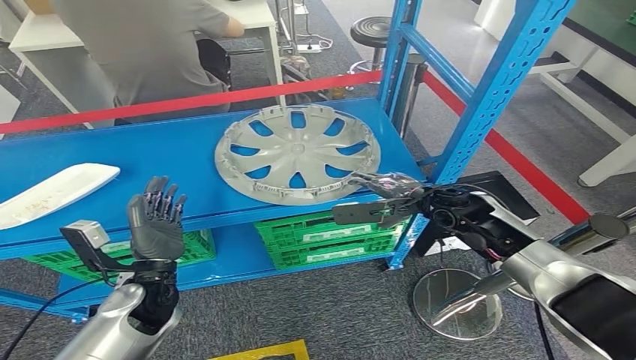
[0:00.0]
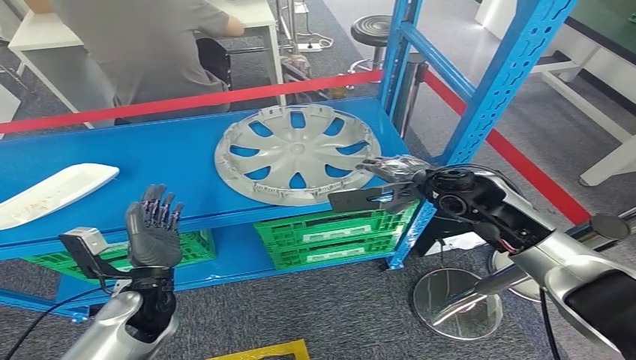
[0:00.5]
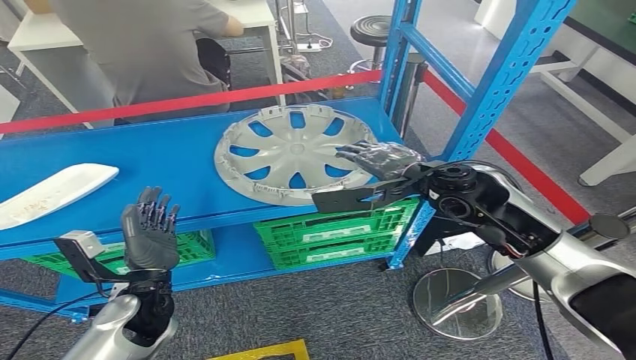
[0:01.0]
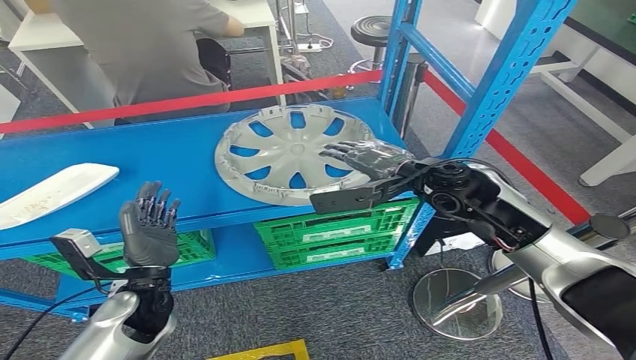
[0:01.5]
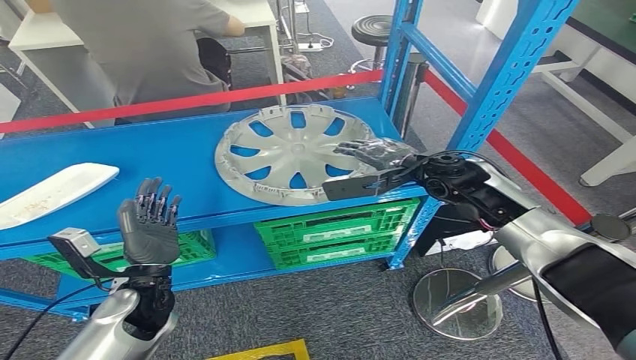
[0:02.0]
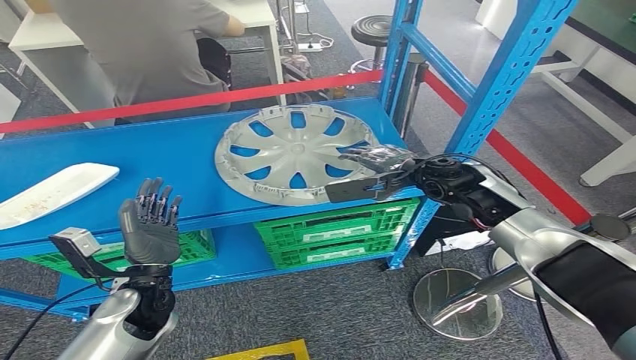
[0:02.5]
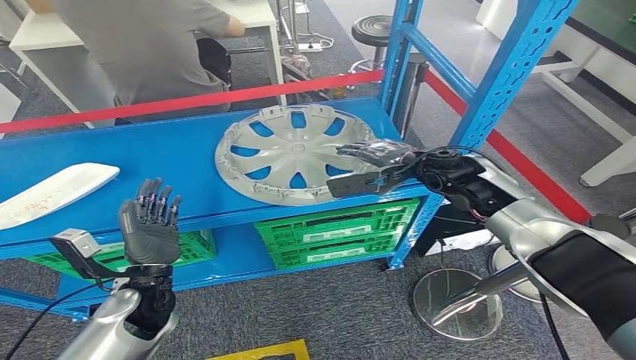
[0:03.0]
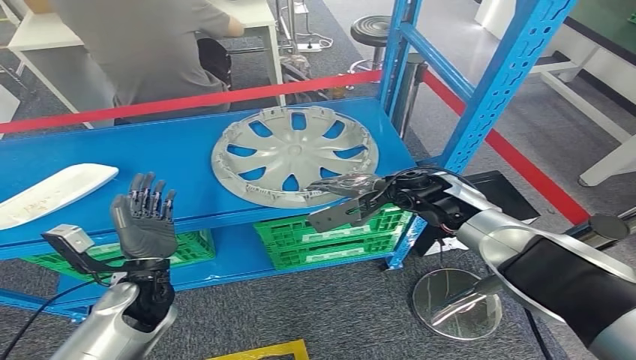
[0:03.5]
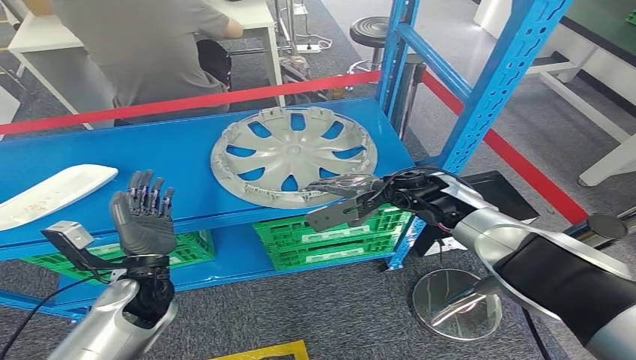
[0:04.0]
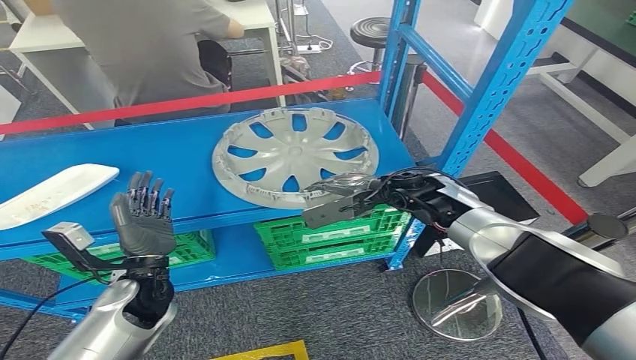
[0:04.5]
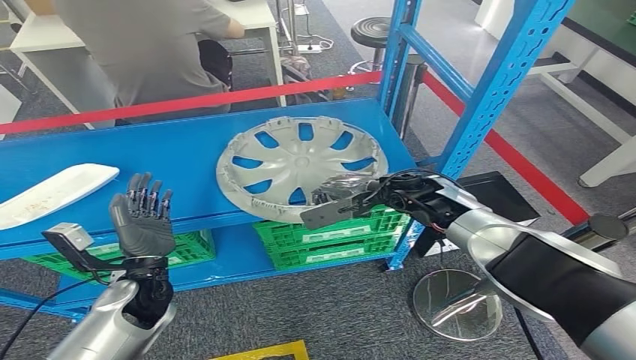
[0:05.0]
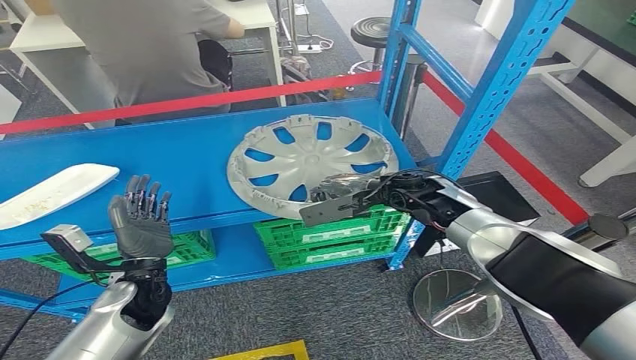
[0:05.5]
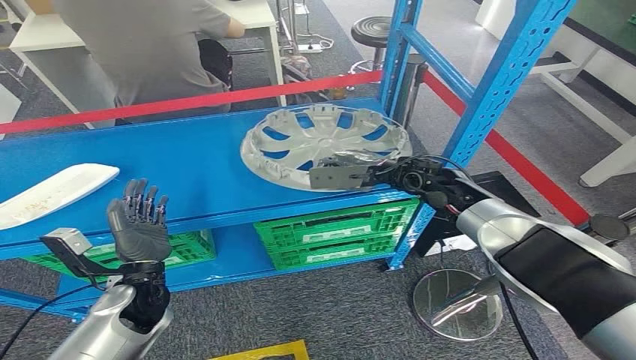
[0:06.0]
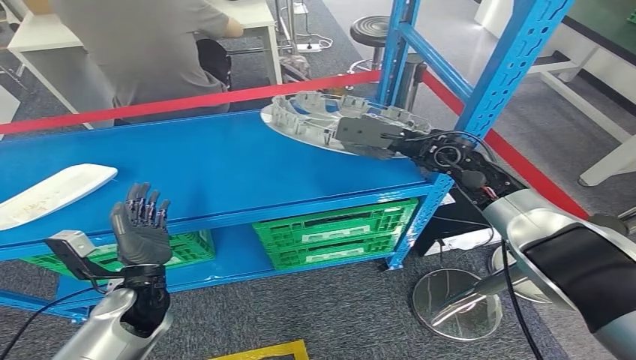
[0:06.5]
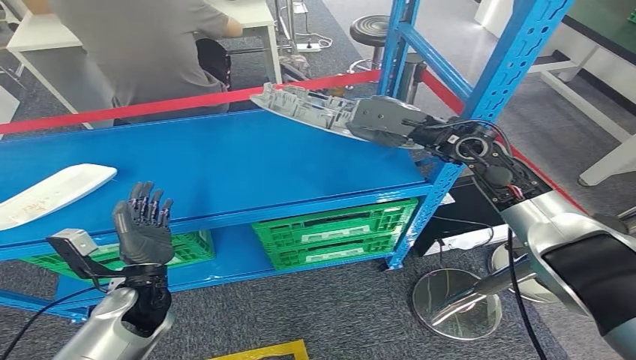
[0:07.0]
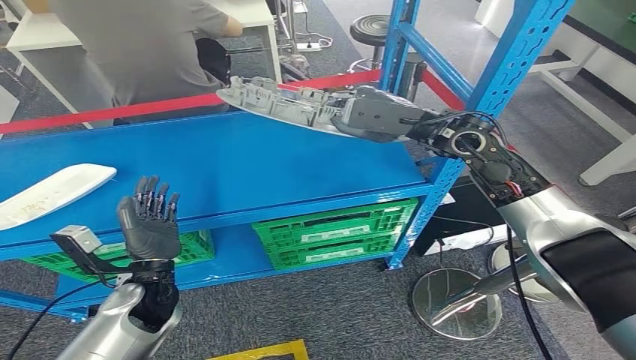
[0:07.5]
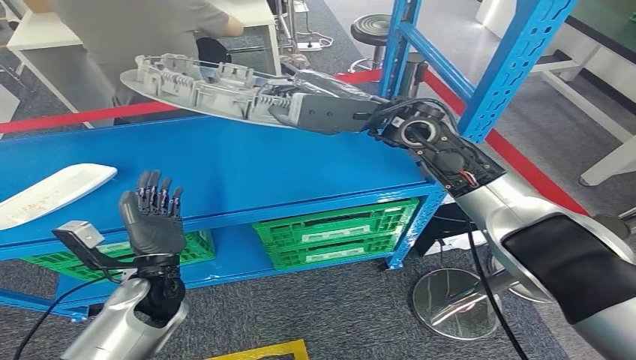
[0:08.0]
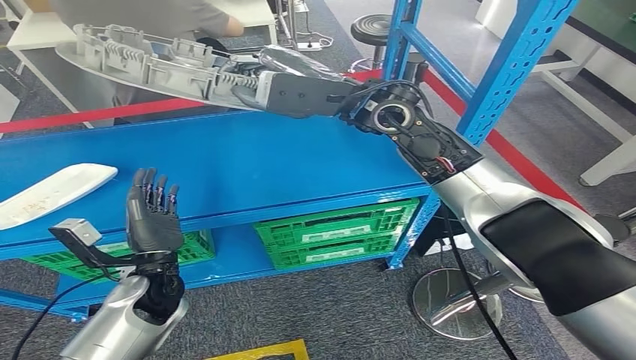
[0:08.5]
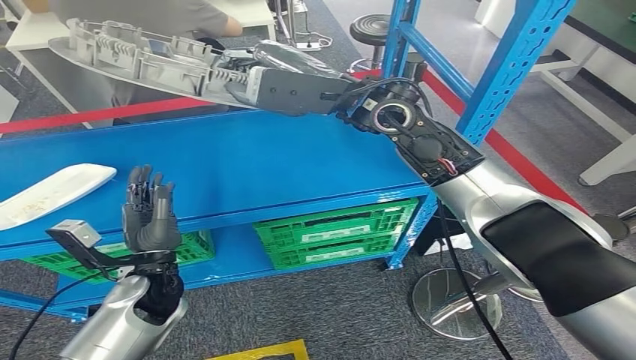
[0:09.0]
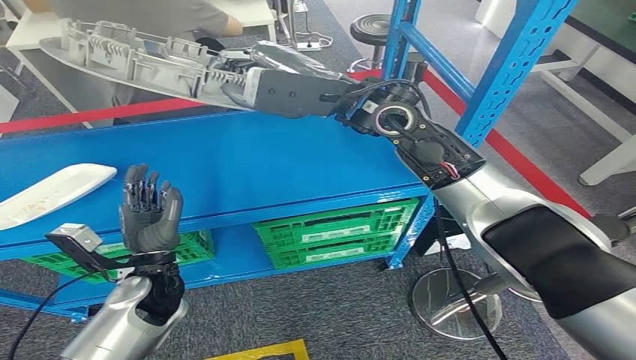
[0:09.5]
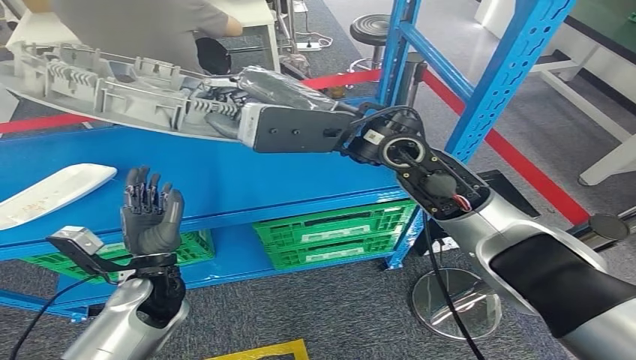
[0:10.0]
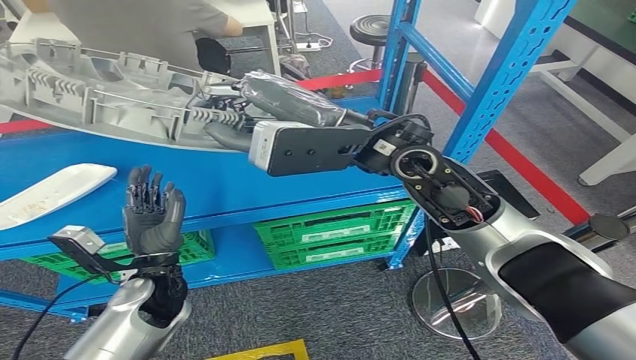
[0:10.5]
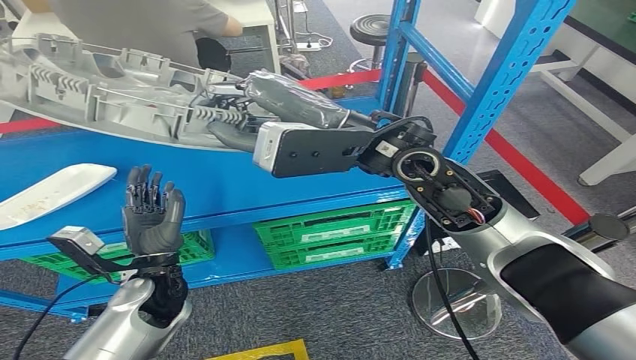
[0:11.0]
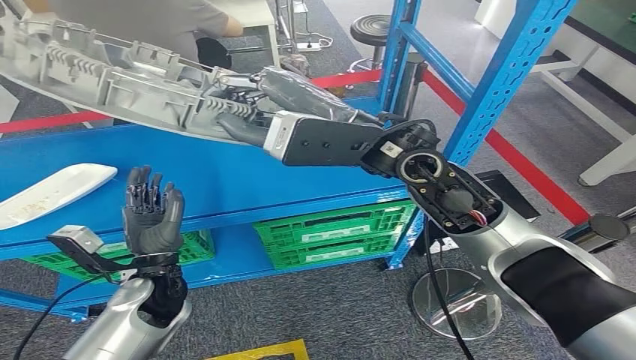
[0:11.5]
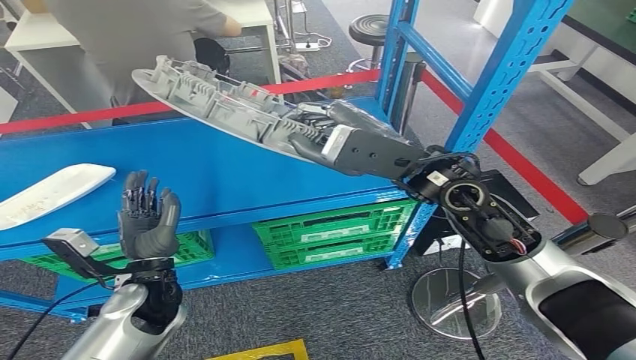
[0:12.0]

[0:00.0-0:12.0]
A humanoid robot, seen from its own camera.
Step, 0:00.0 to 0:08.5: Pick up the small component from the shelf.
0:00.0 to 0:02.0: The right hand goes approximately 5 cm upward.
0:02.0 to 0:04.0: The right hand shifts about 5 cm downward.

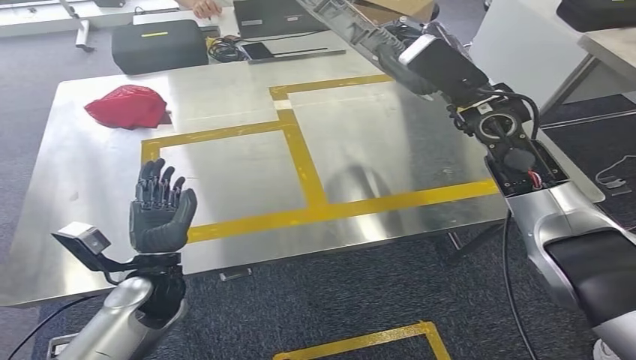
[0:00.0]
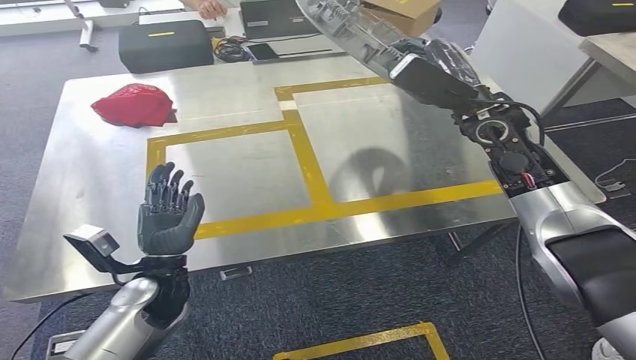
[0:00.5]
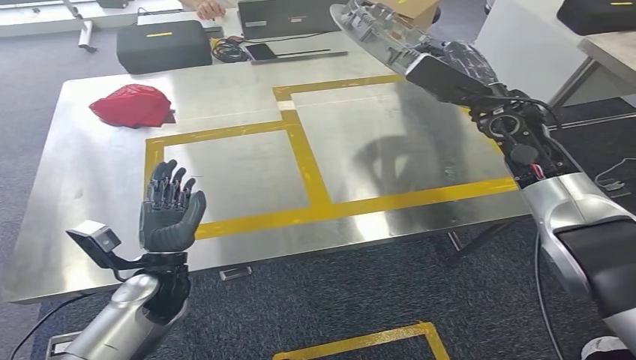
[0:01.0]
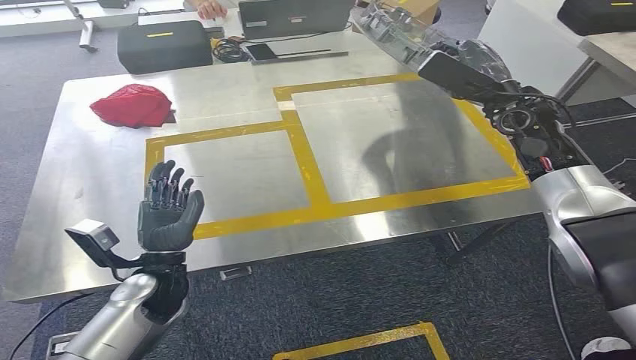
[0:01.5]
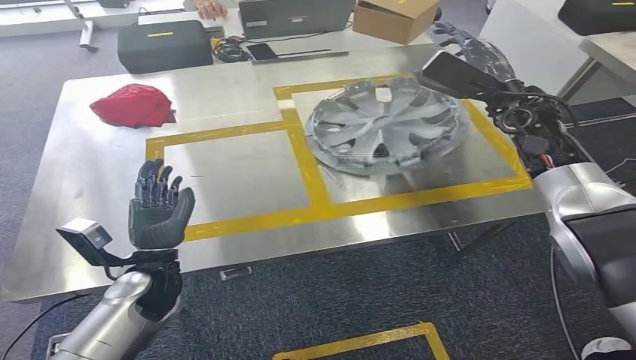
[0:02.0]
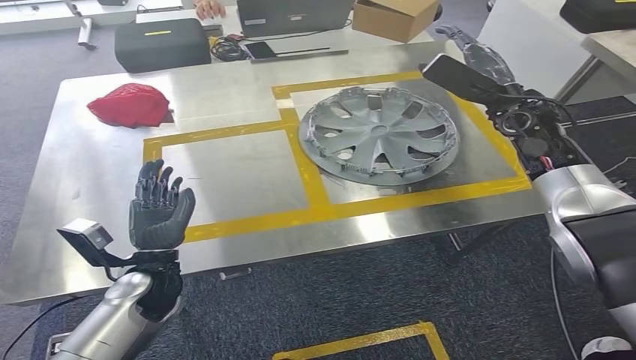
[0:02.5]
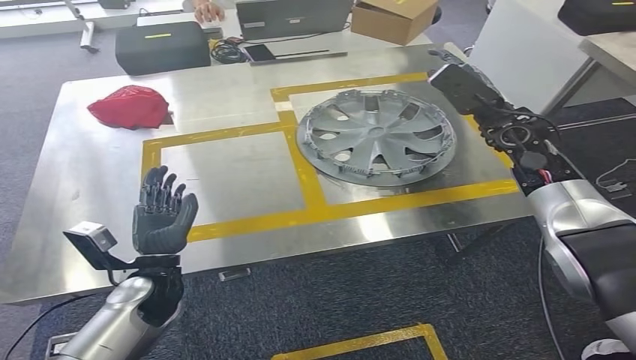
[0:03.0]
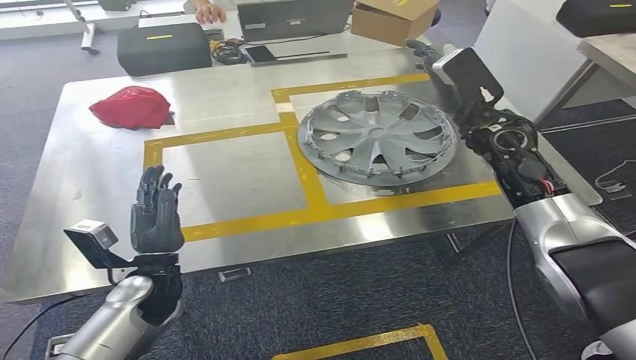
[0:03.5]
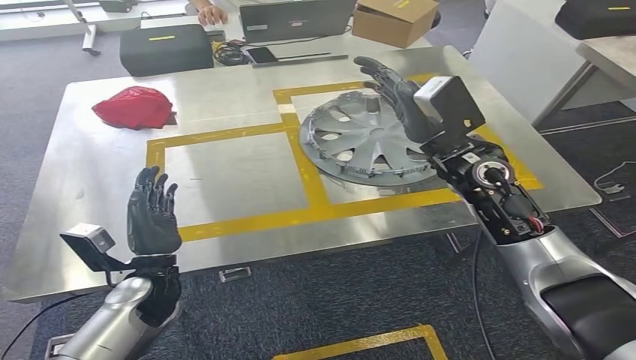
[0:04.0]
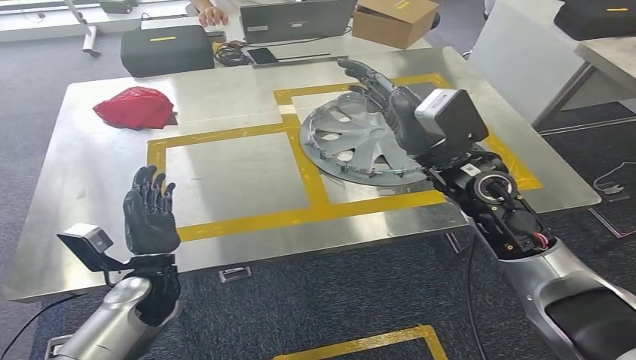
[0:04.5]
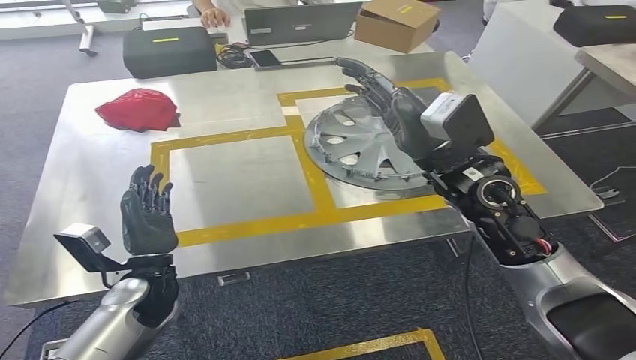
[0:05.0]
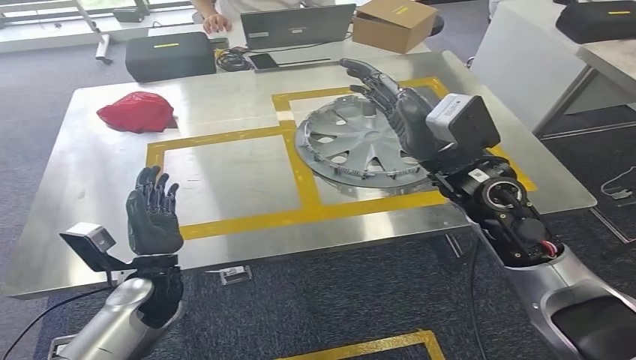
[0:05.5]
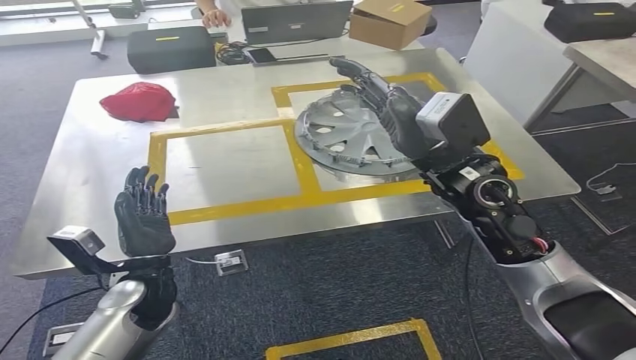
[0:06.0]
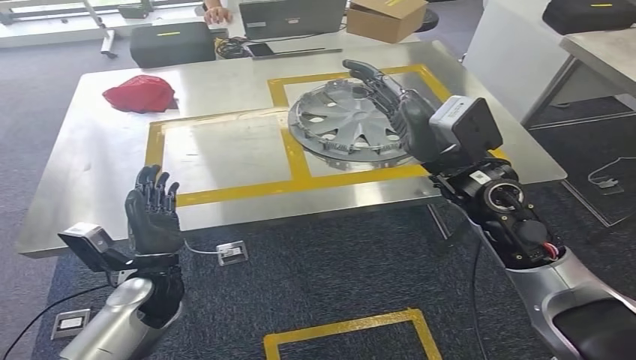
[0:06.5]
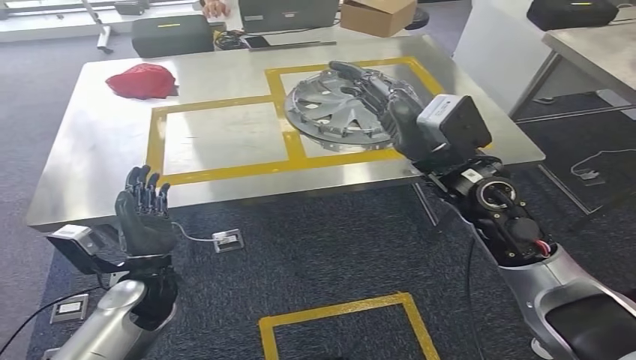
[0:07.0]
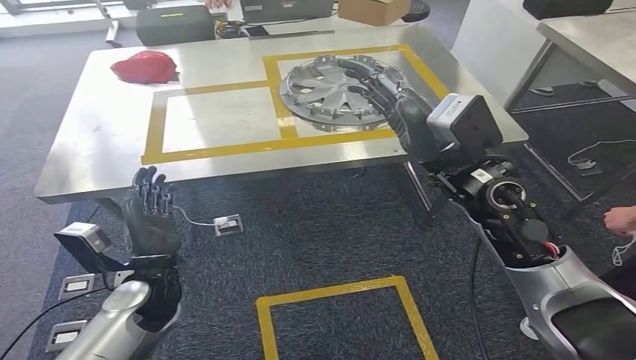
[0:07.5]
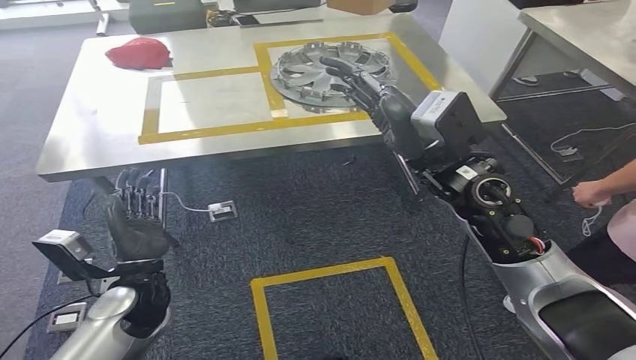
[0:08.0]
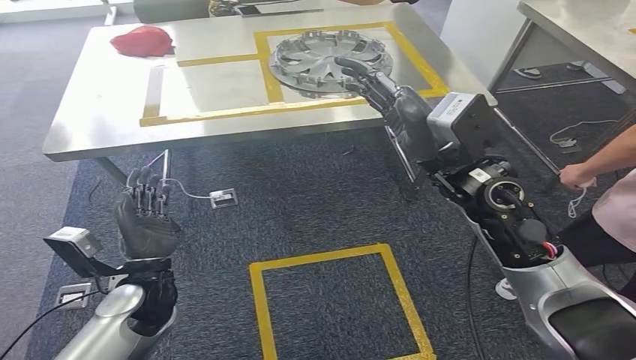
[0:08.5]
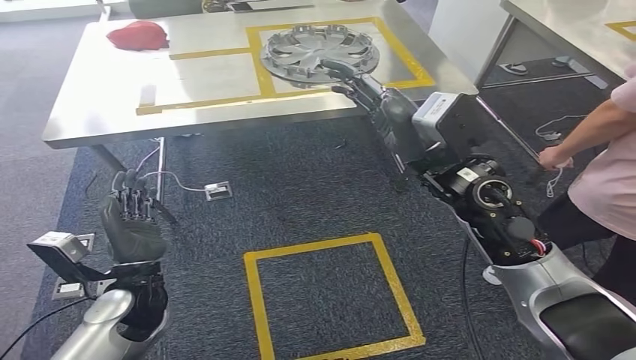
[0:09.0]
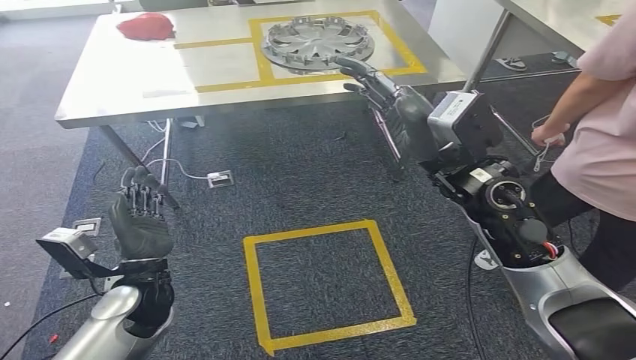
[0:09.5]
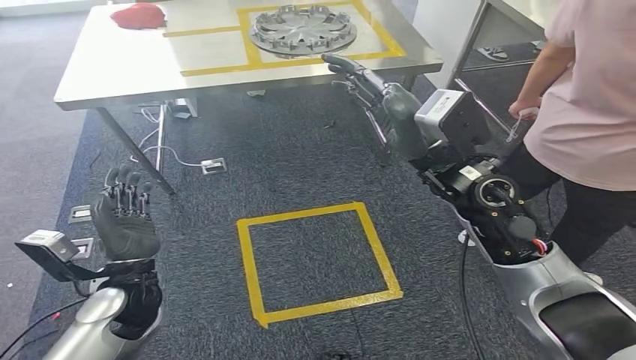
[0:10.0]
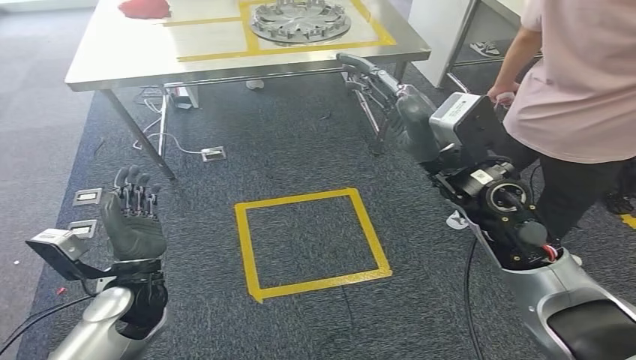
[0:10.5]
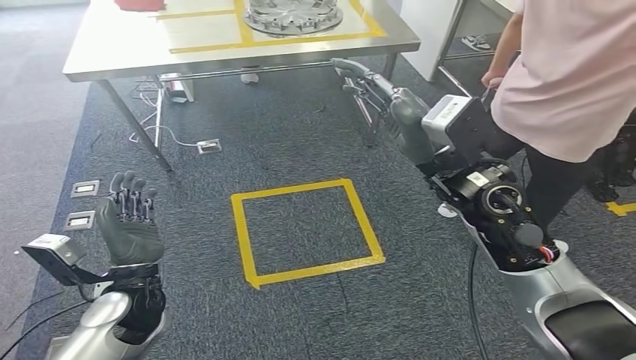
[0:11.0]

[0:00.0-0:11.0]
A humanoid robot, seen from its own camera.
Step, 0:00.5 to 0:06.0: Insert the small component into the corresponding slot on the workbench.
